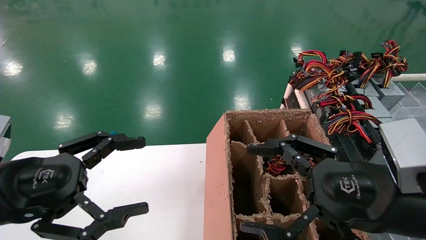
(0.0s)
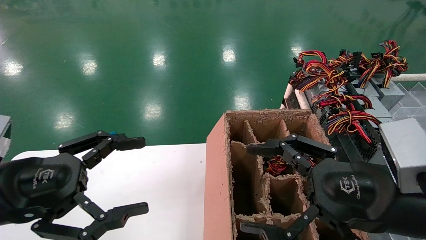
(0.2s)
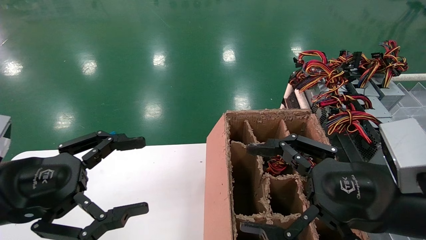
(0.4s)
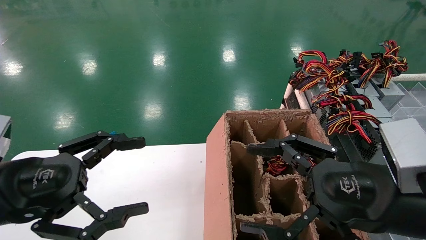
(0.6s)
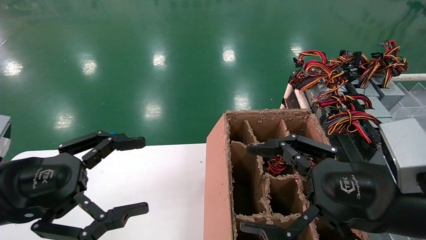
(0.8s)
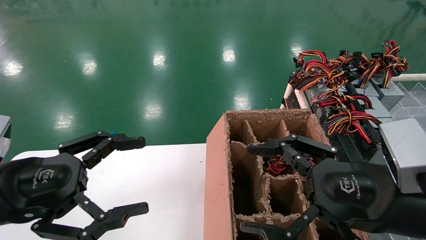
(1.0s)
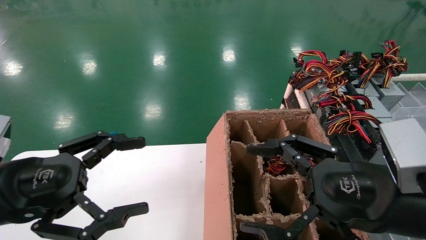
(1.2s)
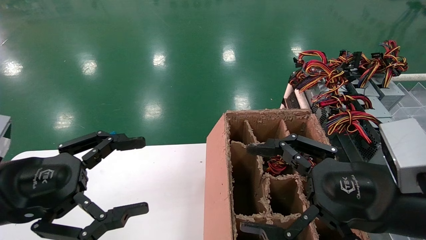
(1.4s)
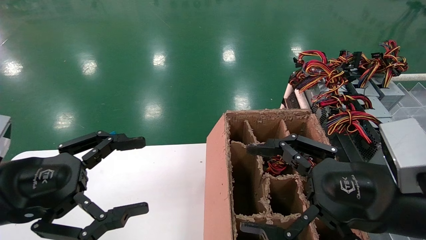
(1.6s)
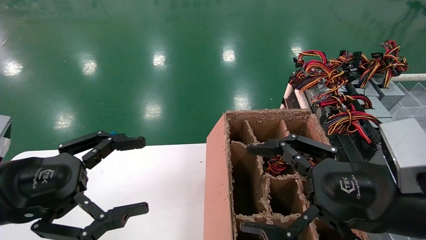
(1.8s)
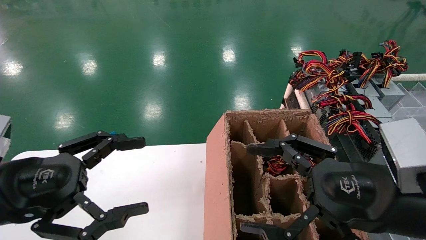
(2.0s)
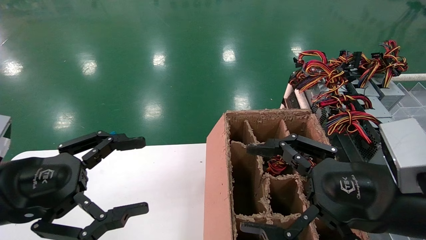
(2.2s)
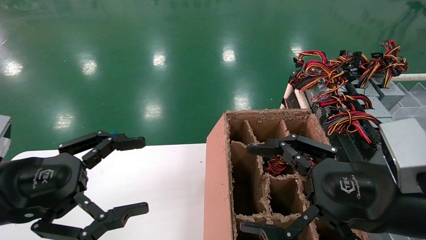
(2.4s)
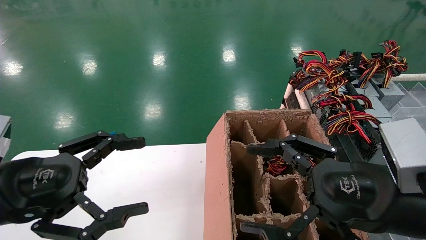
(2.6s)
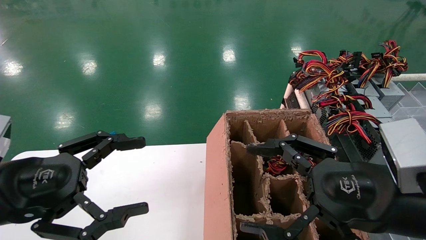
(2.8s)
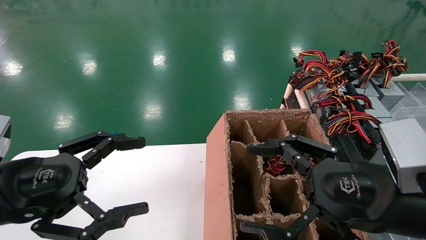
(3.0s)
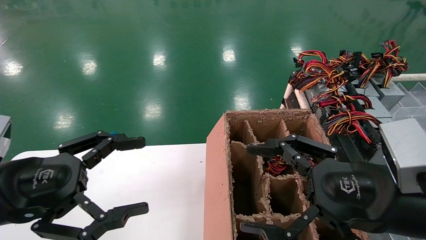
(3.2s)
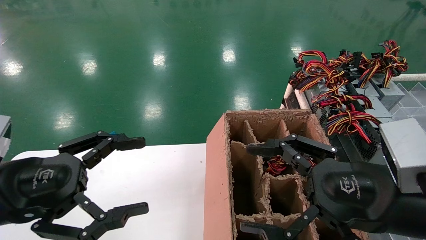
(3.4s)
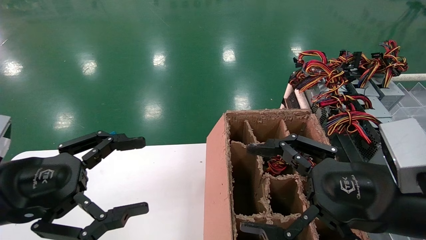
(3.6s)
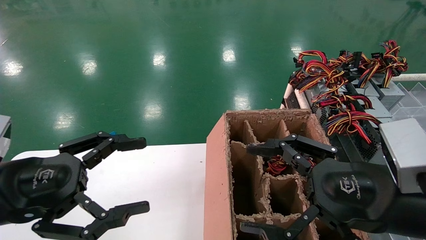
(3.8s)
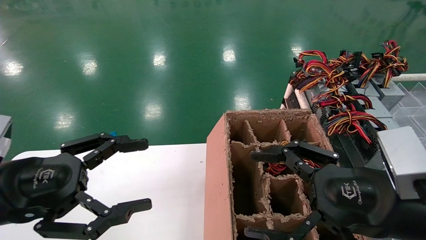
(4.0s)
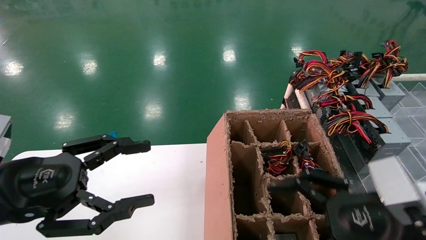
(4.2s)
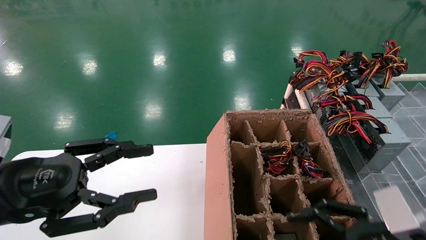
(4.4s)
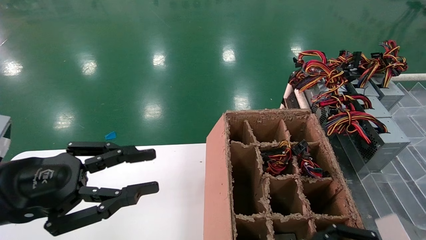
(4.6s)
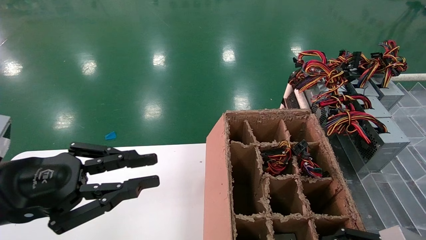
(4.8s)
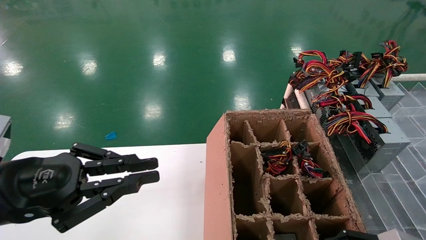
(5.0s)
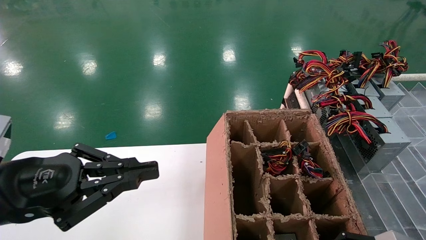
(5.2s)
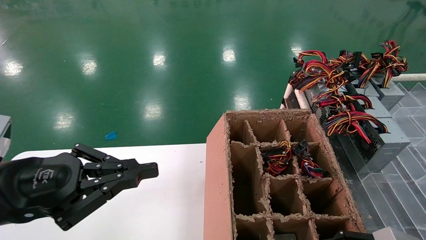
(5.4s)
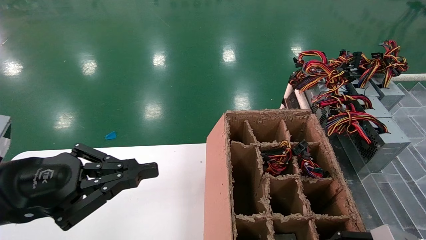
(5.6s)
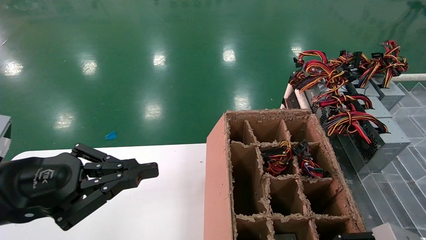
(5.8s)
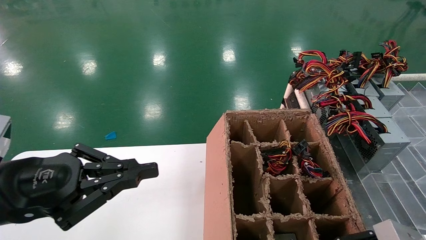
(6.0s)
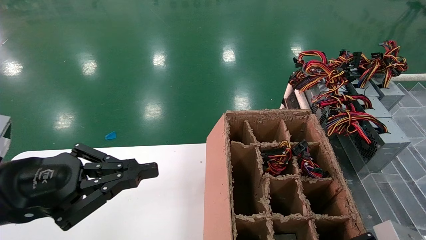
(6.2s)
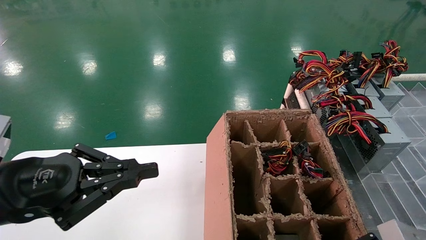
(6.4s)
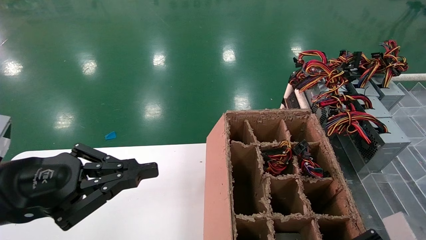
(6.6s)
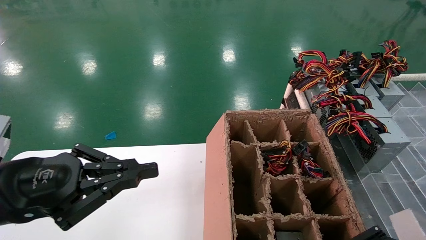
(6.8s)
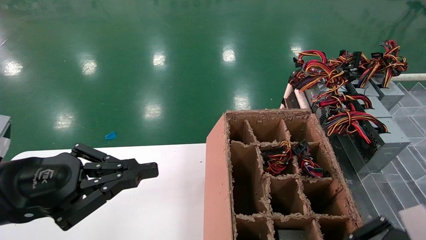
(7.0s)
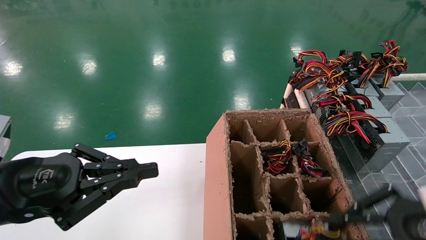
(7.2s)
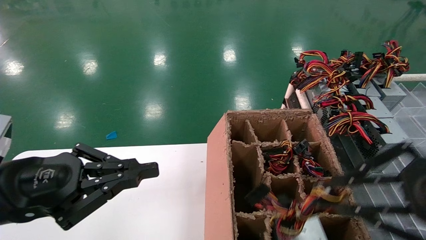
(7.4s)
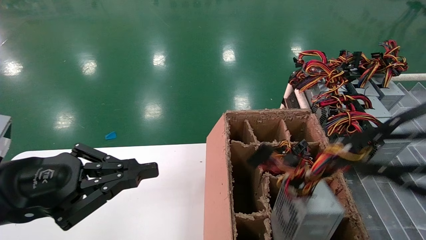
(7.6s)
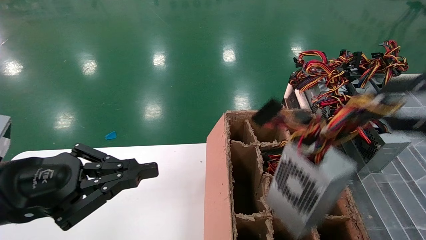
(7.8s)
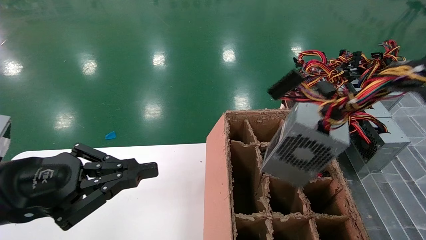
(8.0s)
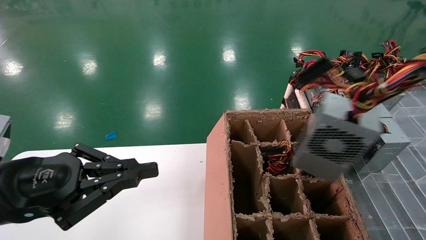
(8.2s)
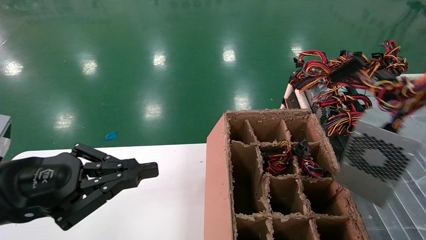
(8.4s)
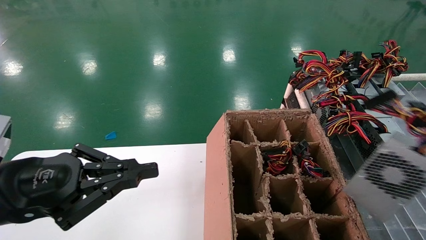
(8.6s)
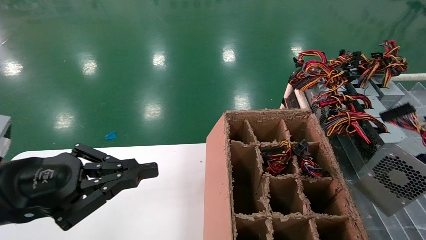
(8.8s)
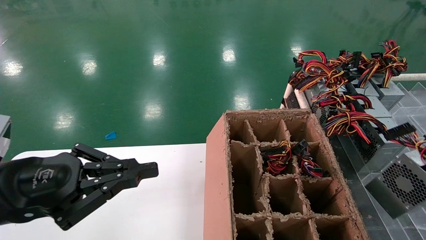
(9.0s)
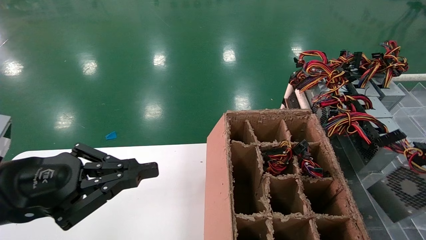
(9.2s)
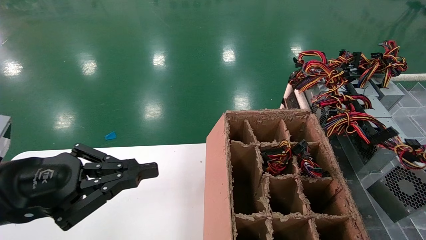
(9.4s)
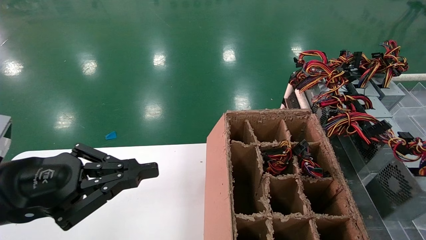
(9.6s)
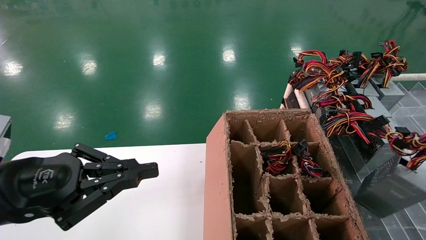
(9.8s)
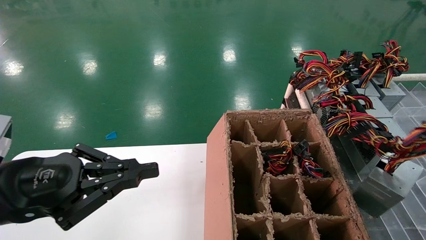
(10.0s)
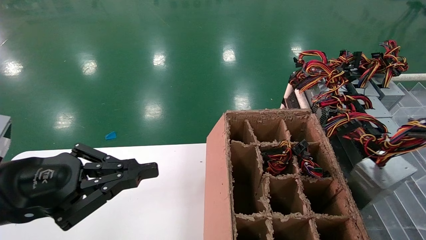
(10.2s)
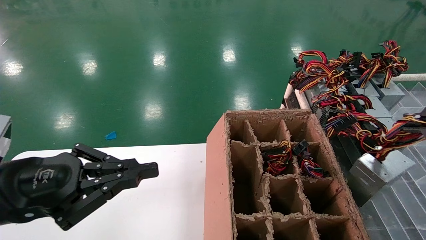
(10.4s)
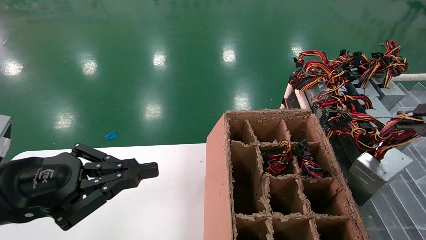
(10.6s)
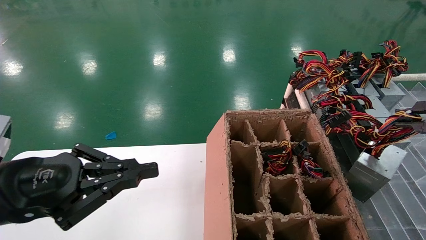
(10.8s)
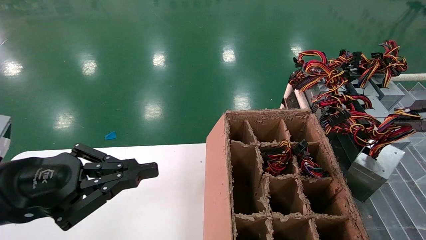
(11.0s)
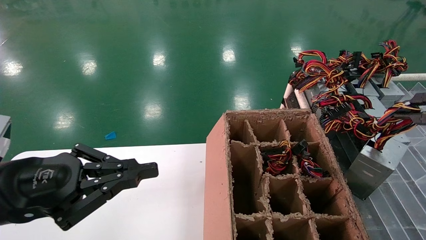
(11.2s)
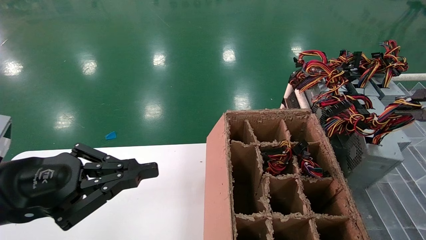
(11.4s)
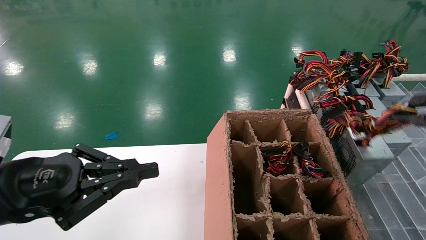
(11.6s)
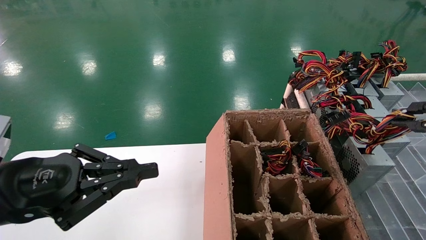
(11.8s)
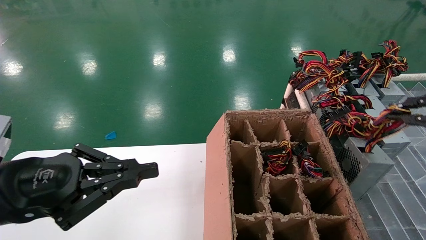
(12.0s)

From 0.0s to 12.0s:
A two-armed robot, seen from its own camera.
Step, from 4.4s to 6.8s: Grab the main unit power supply from the containment box.
From 0.0s to 3.0s: The two grippers keep their place.
From 3.0s to 4.4s: The right gripper moves about 5 cm.
From 4.4s to 6.0s: The right gripper closes, while the left gripper closes up.
From 6.0s to 7.6s: The right gripper is displaced upward by about 20 cm, and closes up.
From 7.6s to 9.0s: The right gripper is displaced to the right by roughly 15 cm.
From 9.0s to 10.4s: The right gripper heads forward, covering approximately 5 cm.
From 10.4s to 12.0s: The right gripper shifts some 5 cm forward.

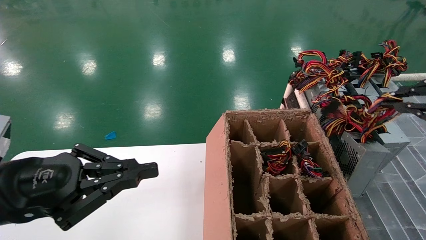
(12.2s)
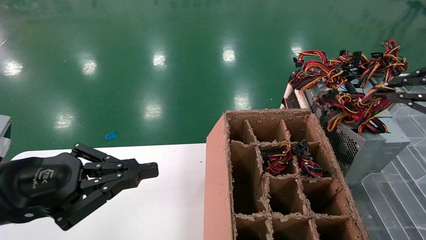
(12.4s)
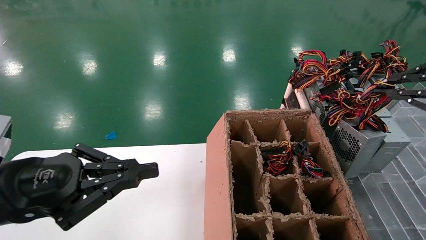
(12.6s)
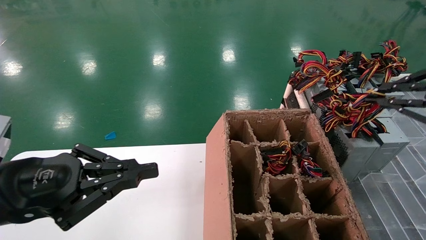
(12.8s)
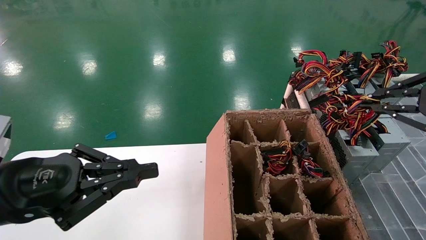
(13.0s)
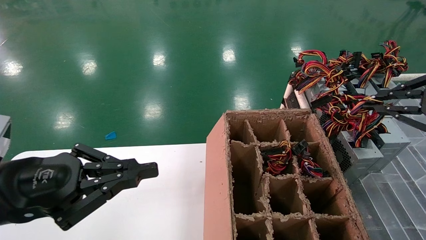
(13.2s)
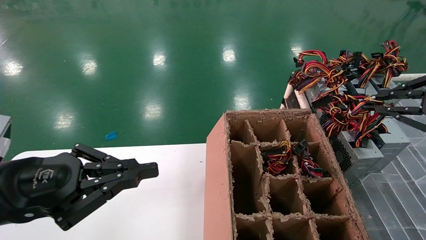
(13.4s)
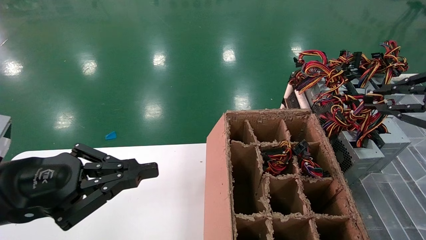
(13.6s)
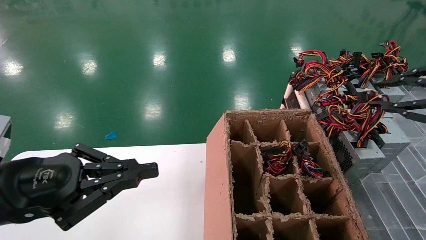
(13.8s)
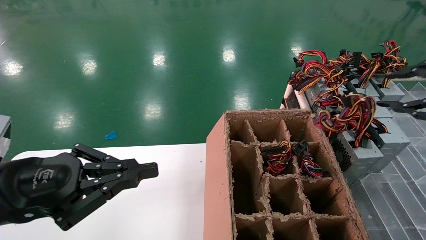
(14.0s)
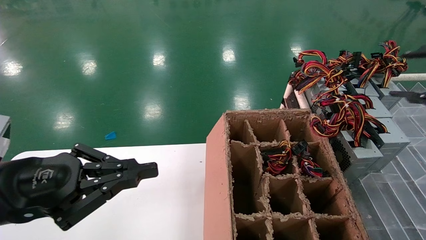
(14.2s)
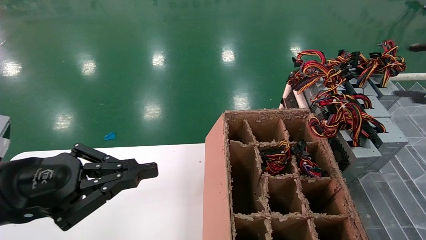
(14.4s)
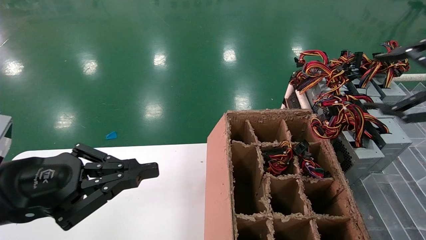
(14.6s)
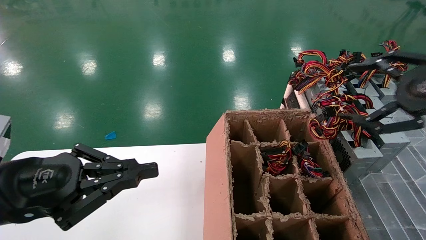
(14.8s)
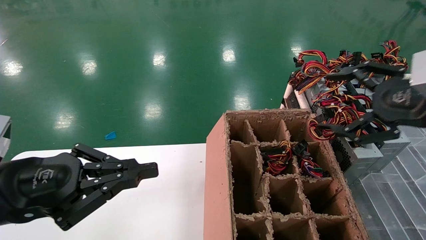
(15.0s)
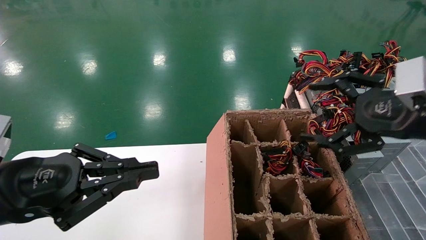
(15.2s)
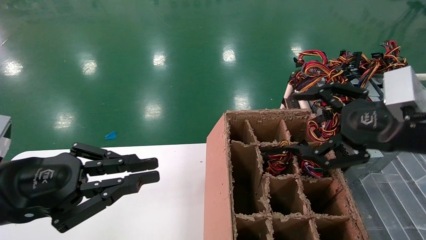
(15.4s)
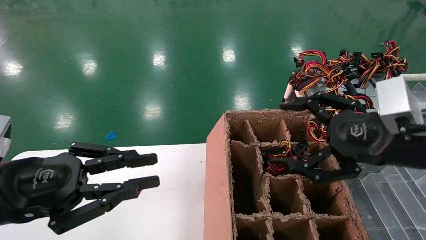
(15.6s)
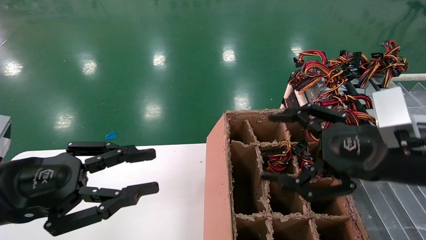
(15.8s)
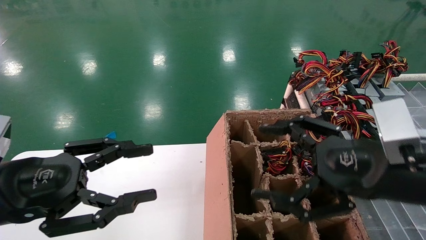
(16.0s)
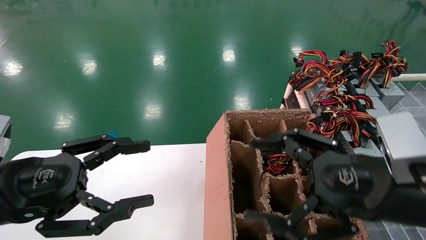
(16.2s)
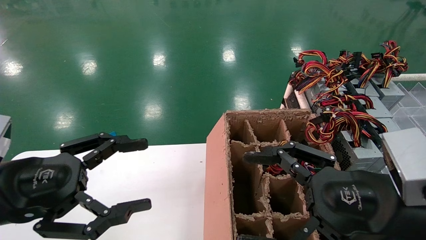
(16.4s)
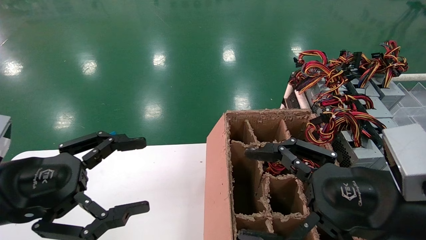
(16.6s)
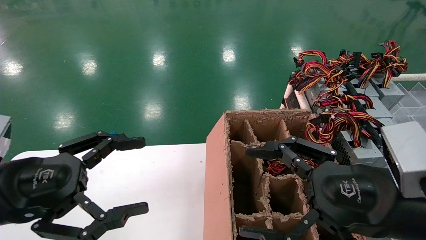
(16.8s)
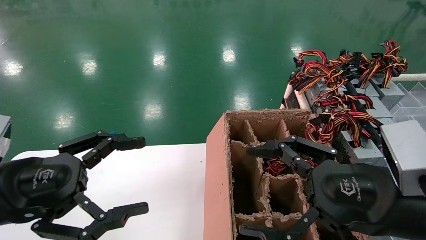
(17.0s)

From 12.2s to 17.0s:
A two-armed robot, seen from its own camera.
From 12.2s to 13.8s: The grippers make only small movements.
From 13.8s to 15.4s: The right gripper heads to the left, covering approximately 15 cm, and opens its fingers.
From 15.4s to 17.0s: The left gripper opens its fingers, while the right gripper moves to the left, backward and downward, some 10 cm.
